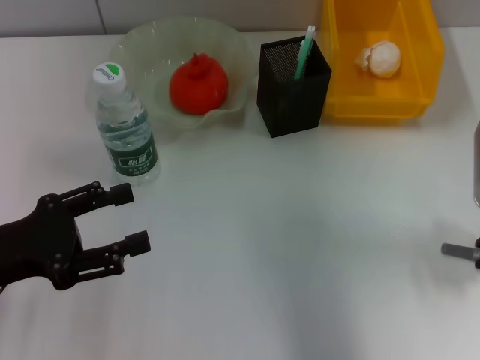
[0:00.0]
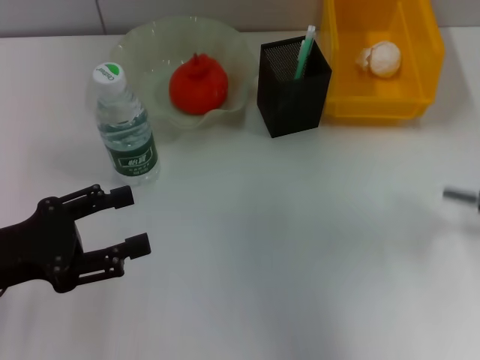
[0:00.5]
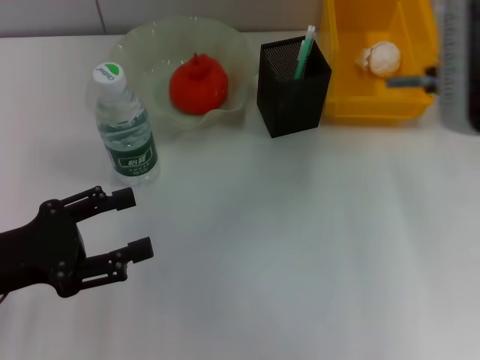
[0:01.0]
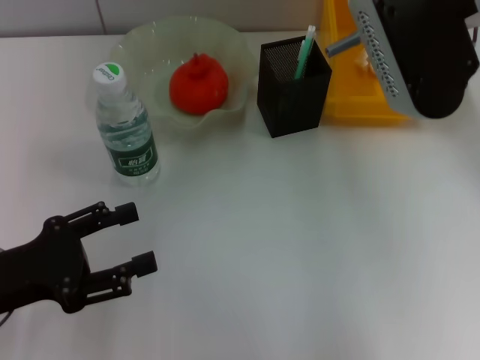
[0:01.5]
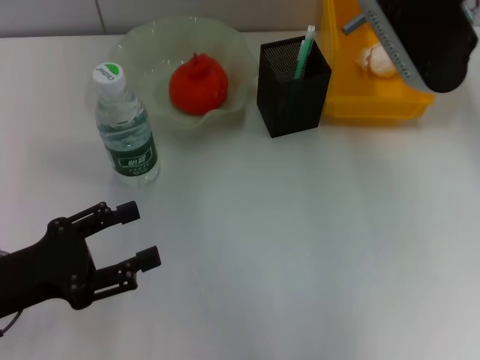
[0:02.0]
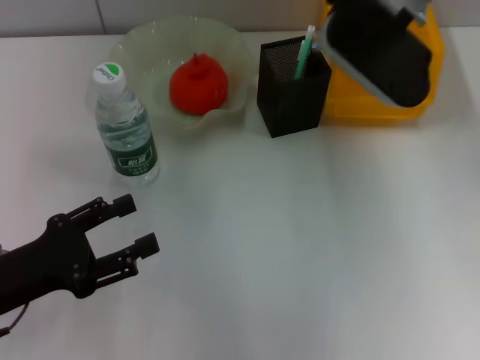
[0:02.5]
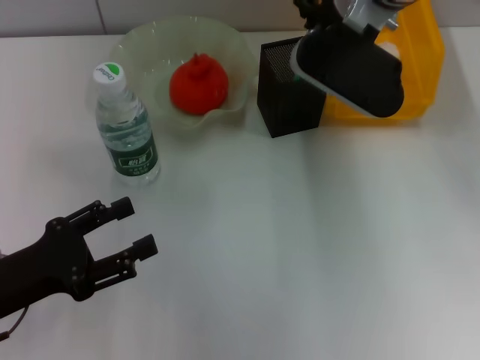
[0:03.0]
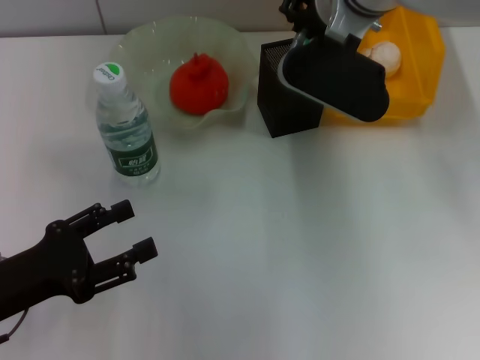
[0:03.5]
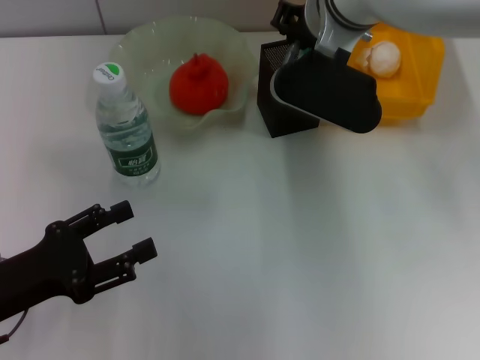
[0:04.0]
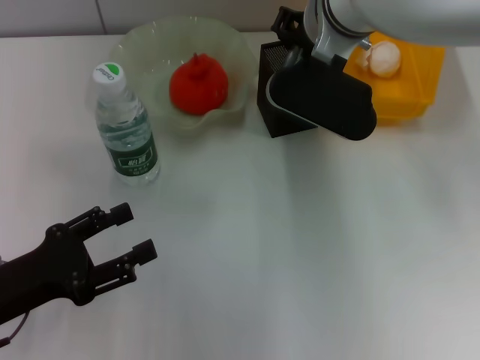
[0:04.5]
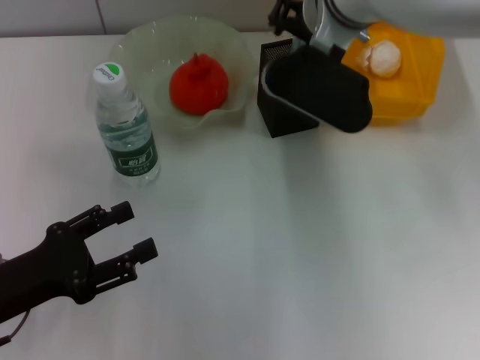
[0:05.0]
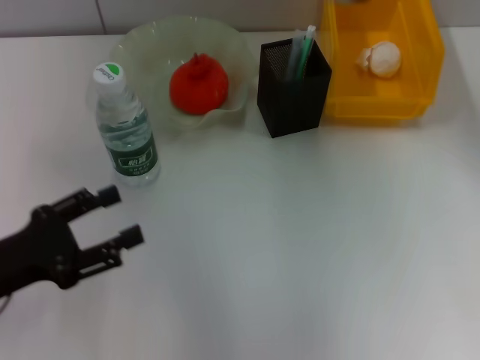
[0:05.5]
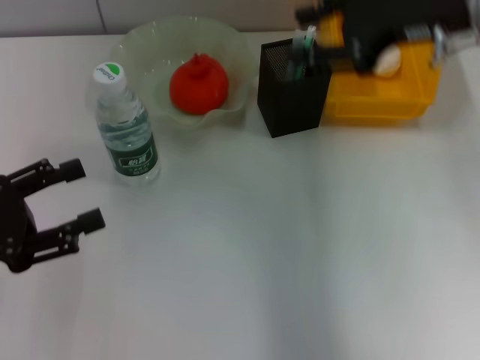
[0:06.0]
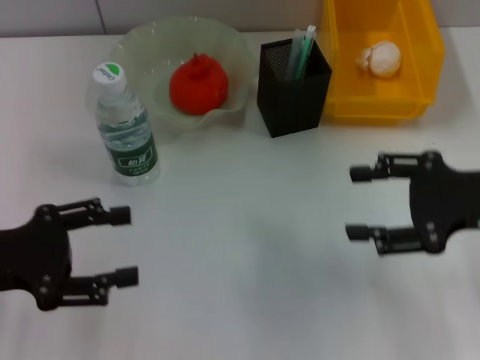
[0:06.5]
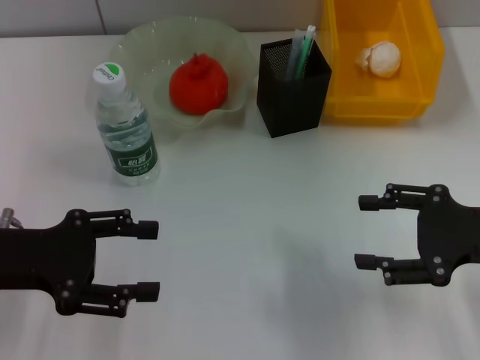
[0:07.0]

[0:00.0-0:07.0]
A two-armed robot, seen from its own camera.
Step, 0:00.5 to 0:04.5: Place the gray glue into the pen holder with the right hand.
0:00.0 to 0:02.0: The right gripper is displaced upward, to the left and forward by roughly 20 cm, and closes its fingers.
0:02.0 to 0:03.5: The right gripper is displaced to the left and downward by approximately 10 cm.
0:03.5 to 0:05.0: The right gripper opens.
0:05.0 to 0:07.0: The left gripper shifts some 10 cm upward and forward; the right gripper travels to the right, backward and downward by about 30 cm, and opens.
